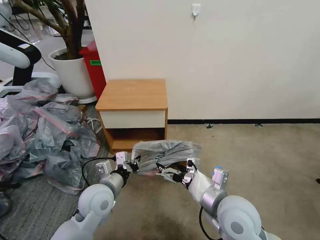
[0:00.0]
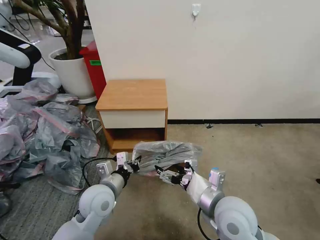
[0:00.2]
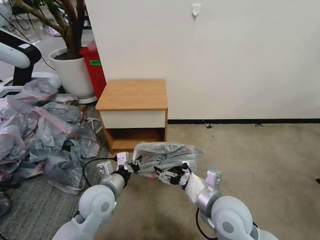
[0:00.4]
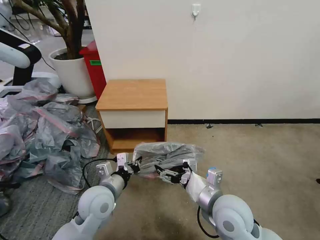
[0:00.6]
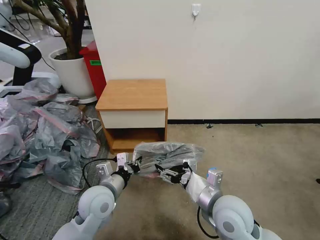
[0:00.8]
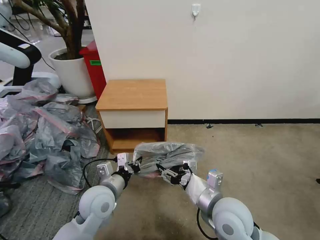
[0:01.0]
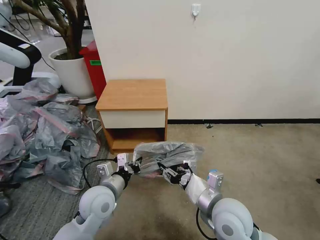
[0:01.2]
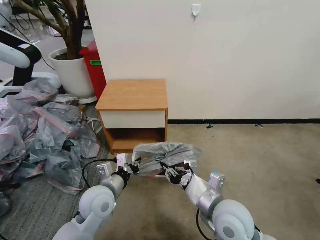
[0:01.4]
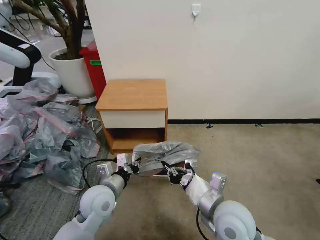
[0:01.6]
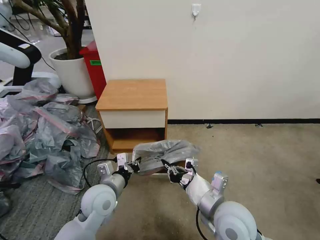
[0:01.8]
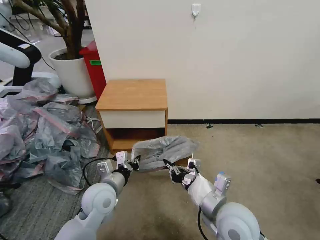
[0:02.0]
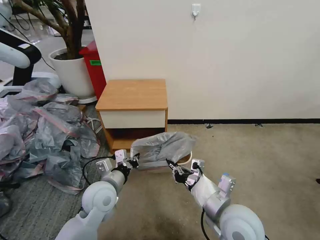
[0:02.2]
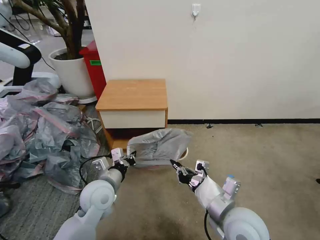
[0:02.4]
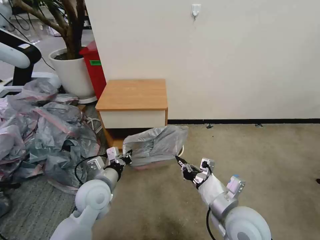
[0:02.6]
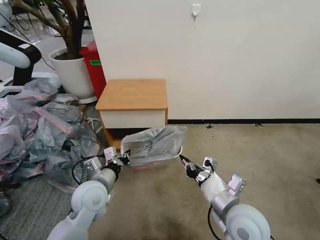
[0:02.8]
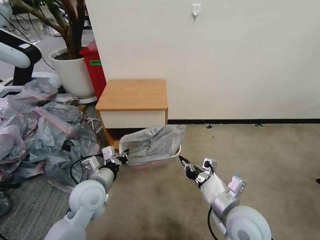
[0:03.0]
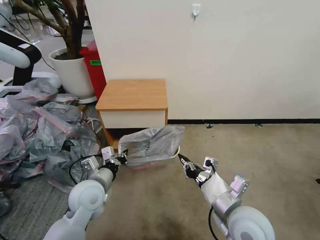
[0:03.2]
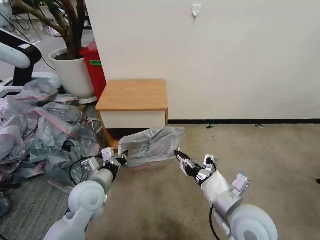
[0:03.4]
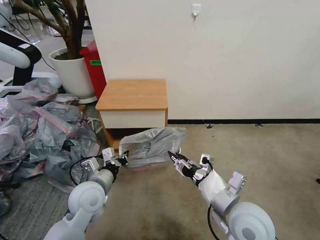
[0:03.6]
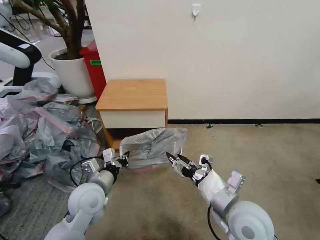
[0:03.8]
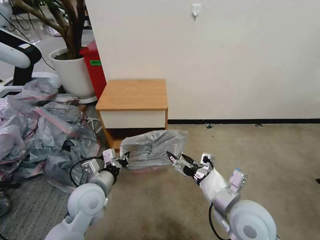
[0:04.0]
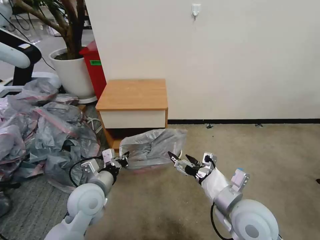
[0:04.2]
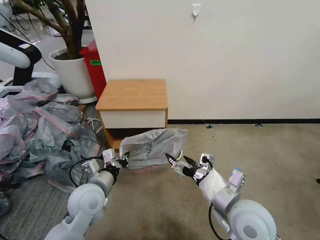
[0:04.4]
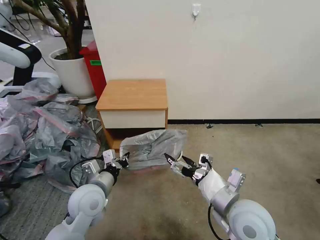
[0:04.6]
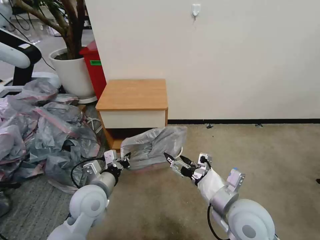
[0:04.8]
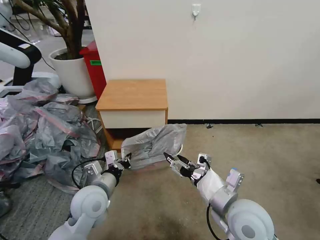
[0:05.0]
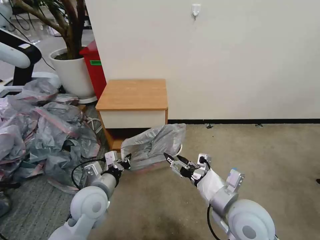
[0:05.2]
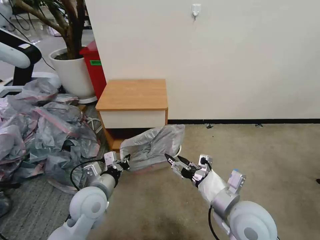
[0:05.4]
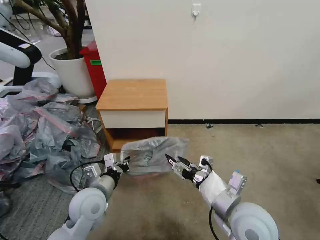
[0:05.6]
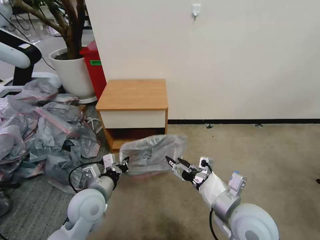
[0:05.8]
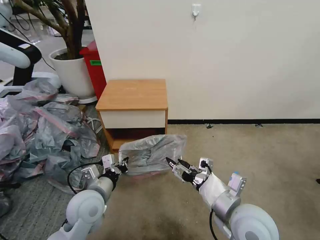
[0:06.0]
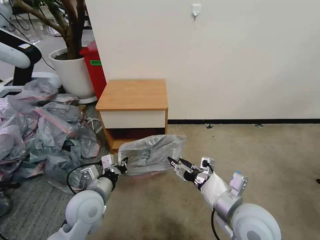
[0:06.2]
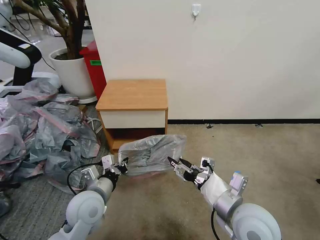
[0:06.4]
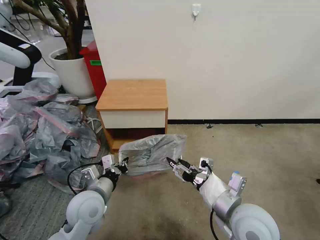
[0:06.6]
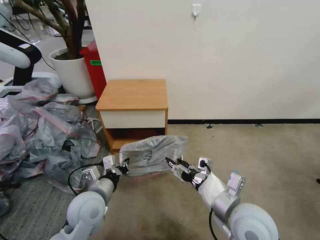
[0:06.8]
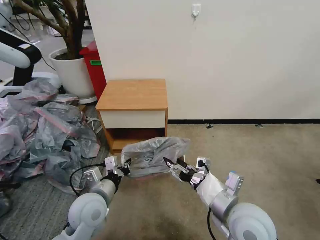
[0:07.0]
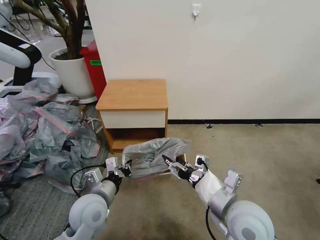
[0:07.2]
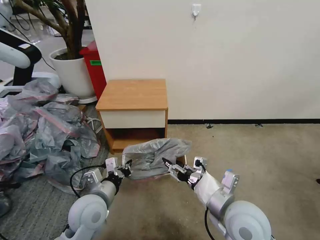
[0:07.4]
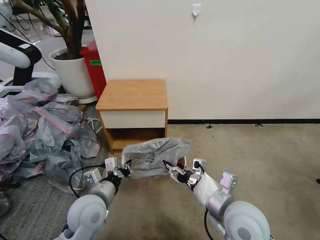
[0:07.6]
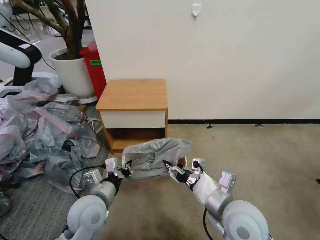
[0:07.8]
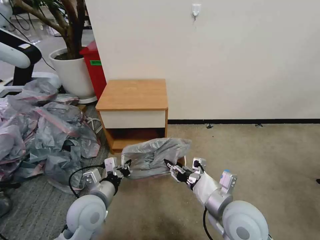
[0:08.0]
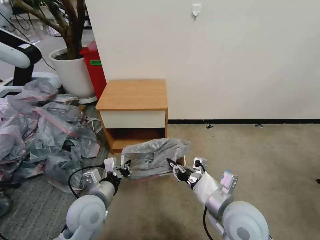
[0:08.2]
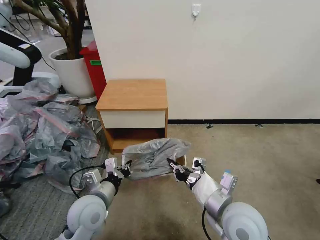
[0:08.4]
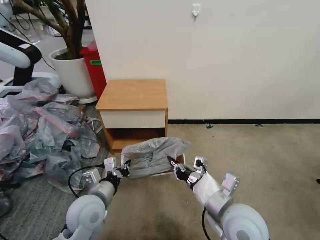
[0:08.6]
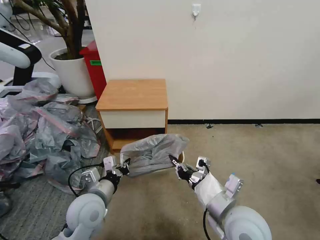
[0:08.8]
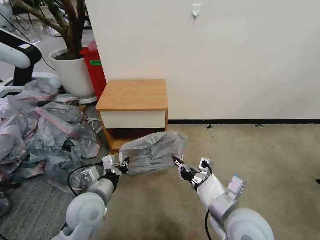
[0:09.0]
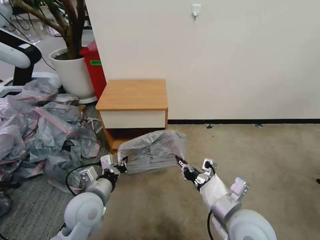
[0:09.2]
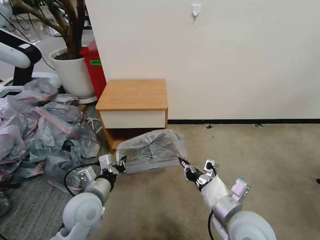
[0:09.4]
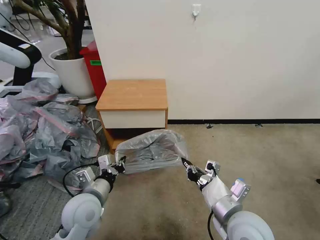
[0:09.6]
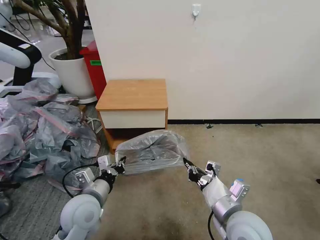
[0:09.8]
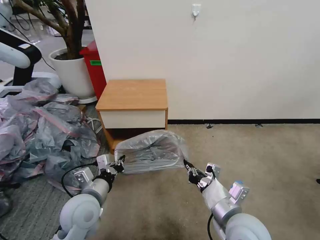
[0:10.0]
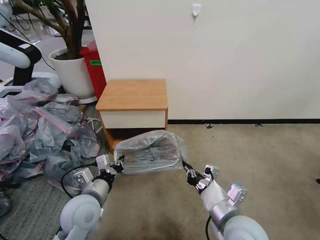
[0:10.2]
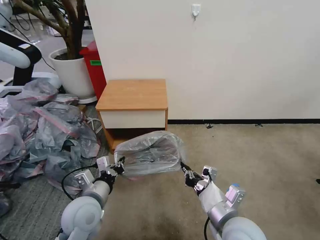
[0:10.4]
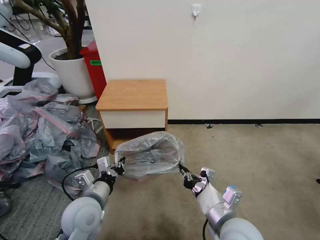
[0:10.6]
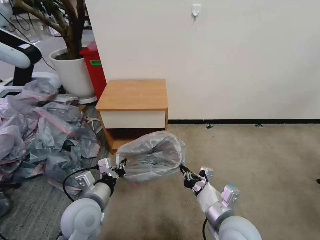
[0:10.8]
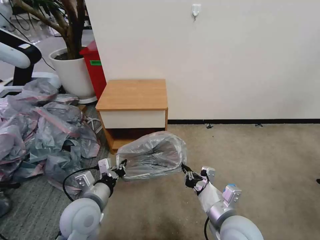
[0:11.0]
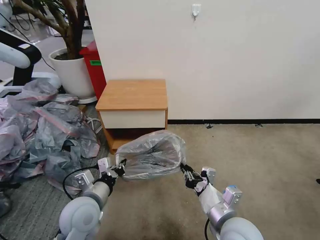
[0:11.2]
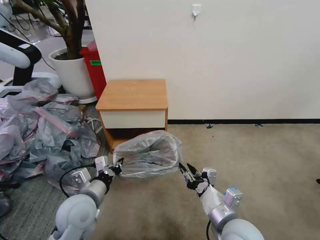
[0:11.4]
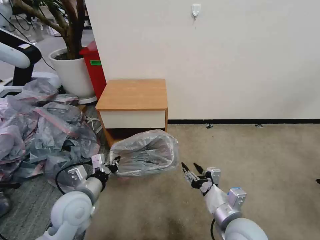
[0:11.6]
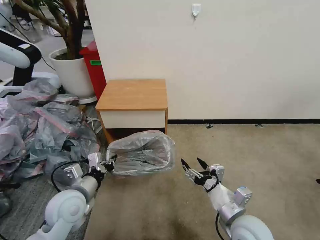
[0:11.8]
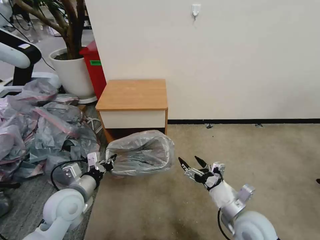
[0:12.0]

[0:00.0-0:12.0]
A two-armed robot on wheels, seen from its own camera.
Task of the whole recording: Pick up the garbage bag from the table and place it over the trash can.
0:00.0 to 0:01.6: The right gripper closes its fingers.
0:01.6 to 0:03.0: The grippers make only small movements.
0:03.0 to 0:04.4: The right gripper opens its fingers.
0:04.4 to 0:07.6: The grippers make only small movements.
0:07.6 to 0:09.0: The right gripper closes up.
0:09.0 to 0:10.4: The grippers make only small movements.
0:10.4 to 0:12.0: The left gripper is displaced to the left by some 5 cm, while the right gripper goes some 10 cm to the right and downward, and opens.

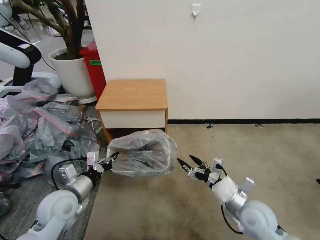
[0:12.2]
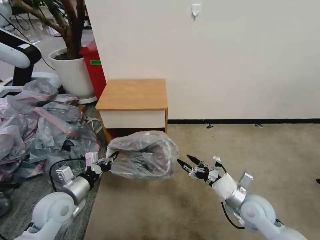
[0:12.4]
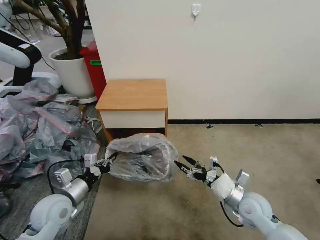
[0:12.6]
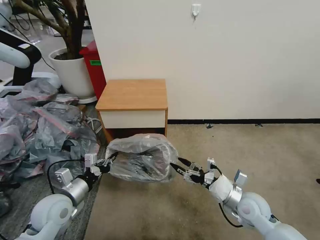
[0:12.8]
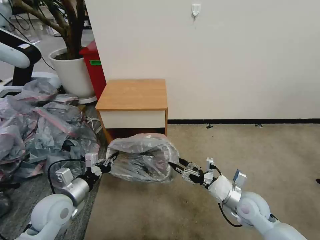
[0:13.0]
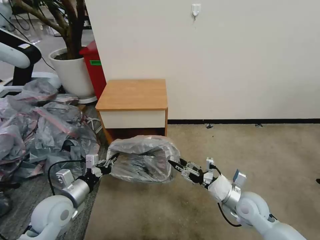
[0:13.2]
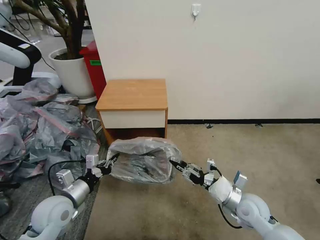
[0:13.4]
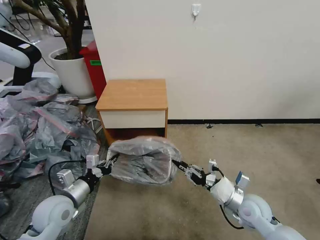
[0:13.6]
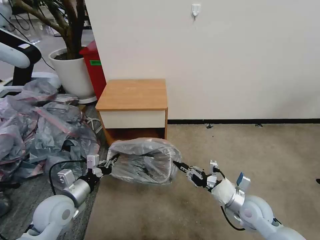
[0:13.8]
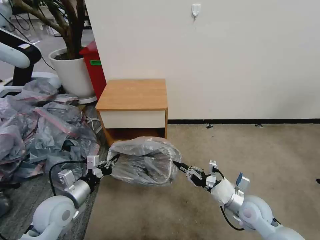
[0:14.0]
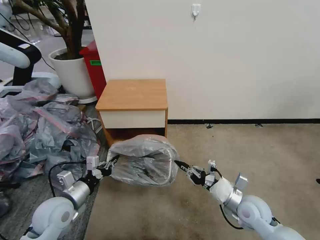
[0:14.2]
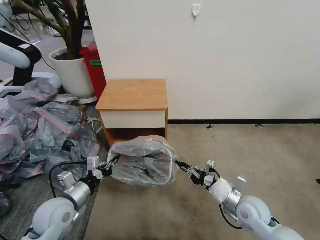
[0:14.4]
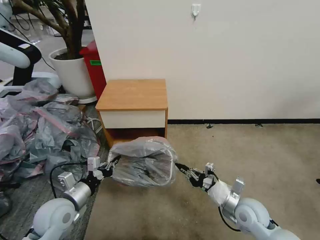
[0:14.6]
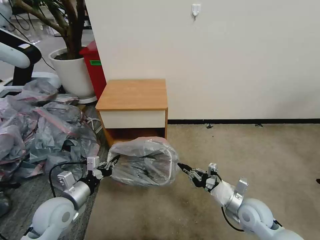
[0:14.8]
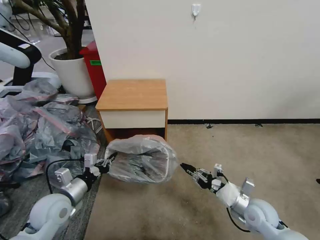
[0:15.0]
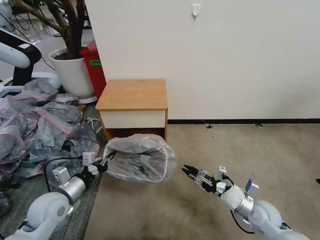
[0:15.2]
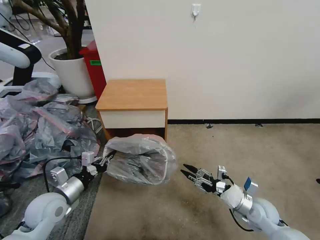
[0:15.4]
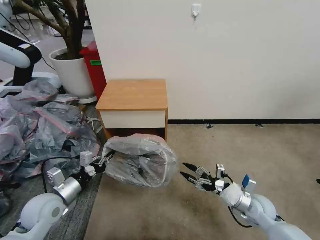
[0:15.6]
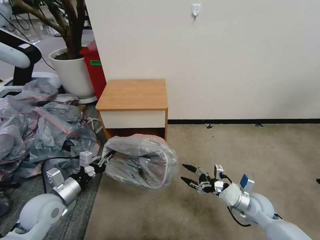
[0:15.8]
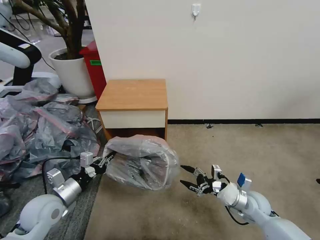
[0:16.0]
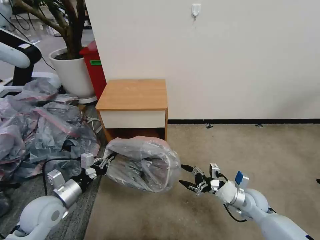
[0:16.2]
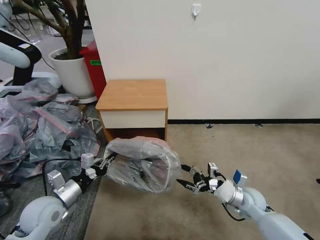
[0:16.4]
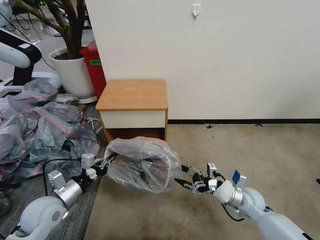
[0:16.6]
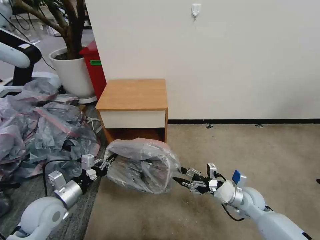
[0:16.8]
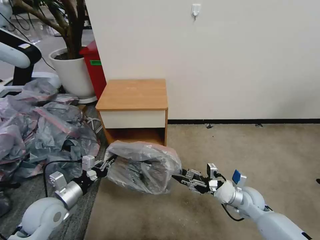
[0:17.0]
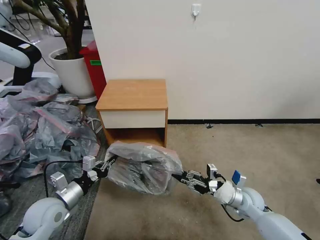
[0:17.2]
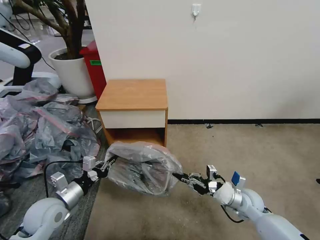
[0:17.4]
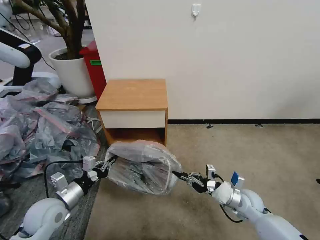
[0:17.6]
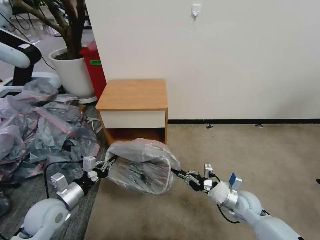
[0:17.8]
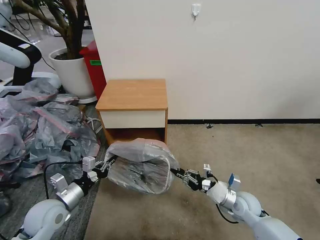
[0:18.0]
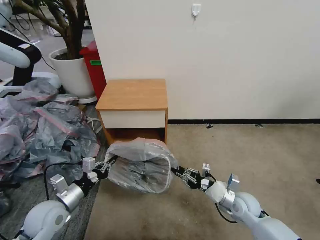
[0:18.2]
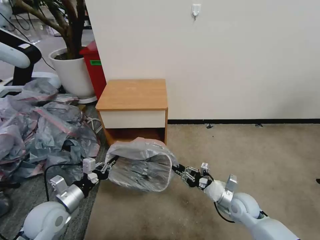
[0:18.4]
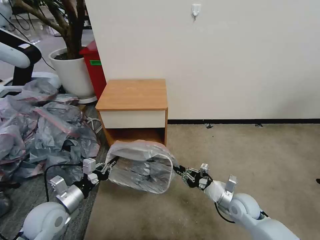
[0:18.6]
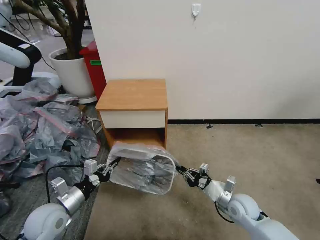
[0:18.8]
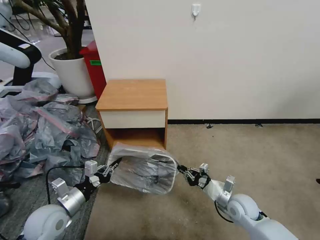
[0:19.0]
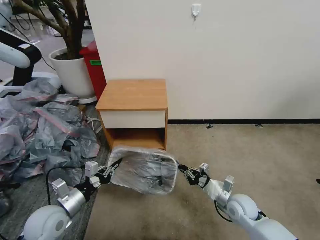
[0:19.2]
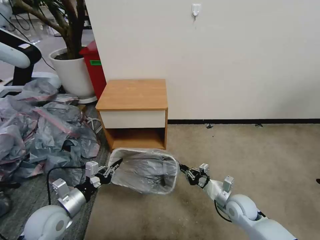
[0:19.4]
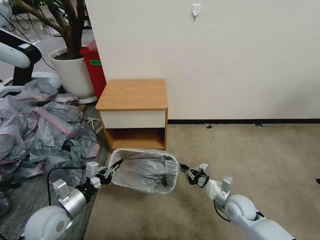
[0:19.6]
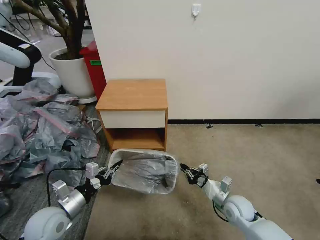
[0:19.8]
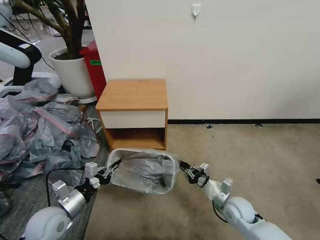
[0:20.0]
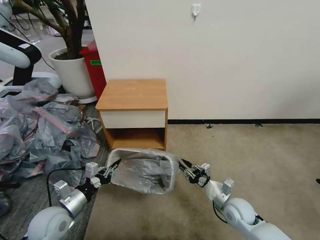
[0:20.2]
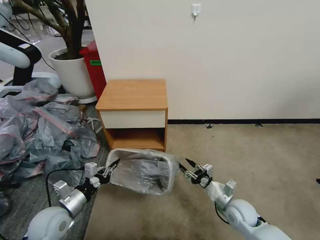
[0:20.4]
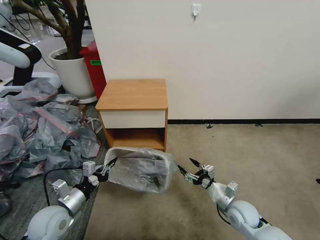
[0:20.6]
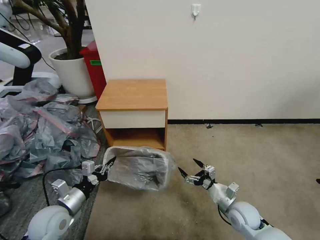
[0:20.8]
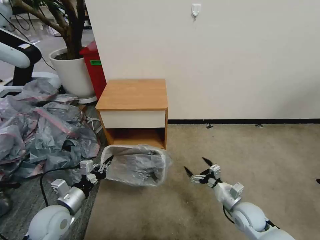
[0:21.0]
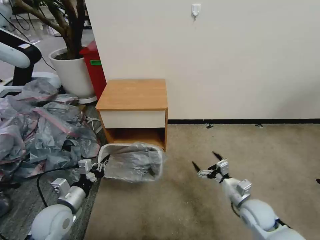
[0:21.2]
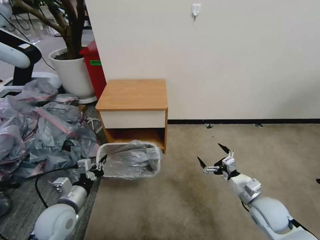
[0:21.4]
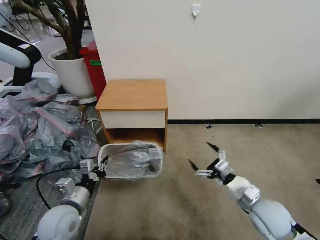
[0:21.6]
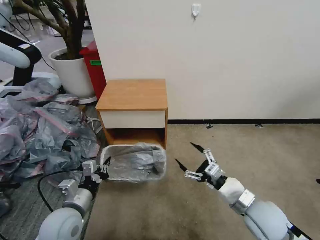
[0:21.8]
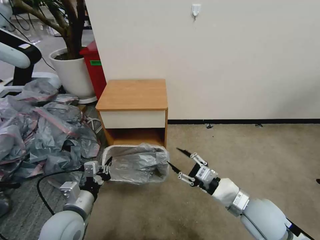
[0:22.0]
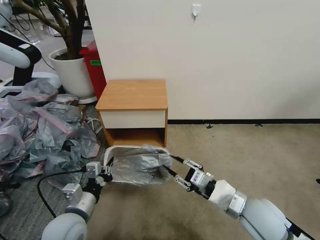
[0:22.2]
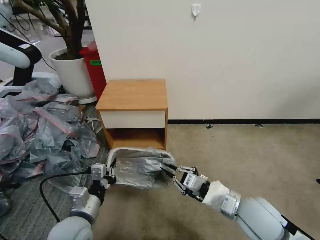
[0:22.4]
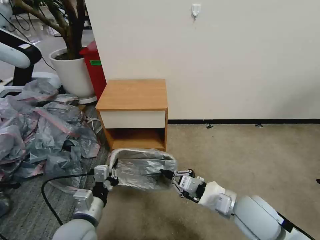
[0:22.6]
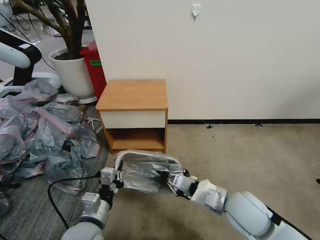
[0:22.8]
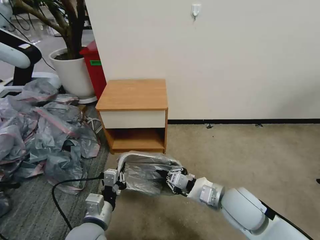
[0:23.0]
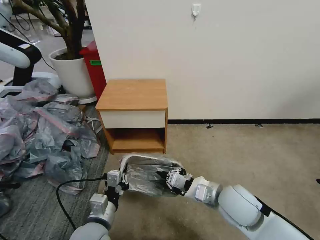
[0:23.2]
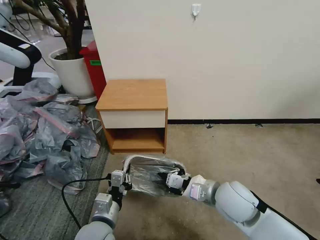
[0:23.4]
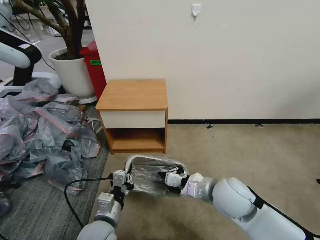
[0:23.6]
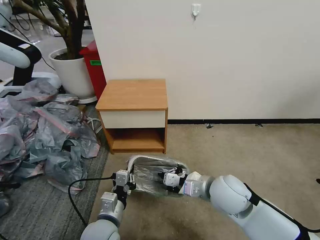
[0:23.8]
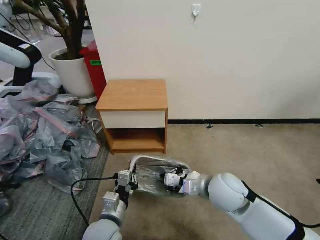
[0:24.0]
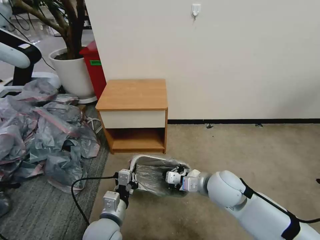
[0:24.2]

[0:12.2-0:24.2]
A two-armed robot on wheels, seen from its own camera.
Task of the whole recording: Pick up the garbage bag from the table and place it over the trash can.
0:12.2 to 0:13.8: The right gripper closes up.
0:13.8 to 0:15.2: The right gripper shifts by approximately 5 cm.
0:15.2 to 0:16.6: The right gripper changes place by roughly 5 cm, and opens up.
0:16.6 to 0:18.2: The right gripper closes its fingers.
0:19.8 to 0:21.2: The right gripper moves roughly 5 cm, and opens.
0:21.2 to 0:22.6: The left gripper is displaced to the right by about 10 cm, while the right gripper moves upward and to the left, approximately 15 cm, and closes up.
0:22.6 to 0:24.2: The left gripper shifts approximately 5 cm to the right; the right gripper moves forward, roughly 10 cm.
